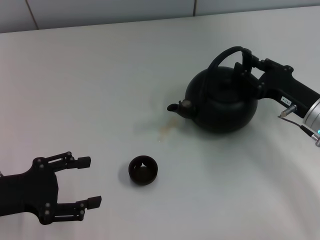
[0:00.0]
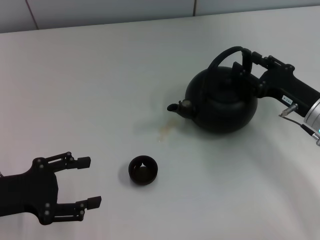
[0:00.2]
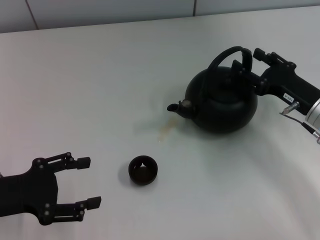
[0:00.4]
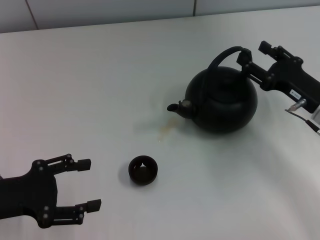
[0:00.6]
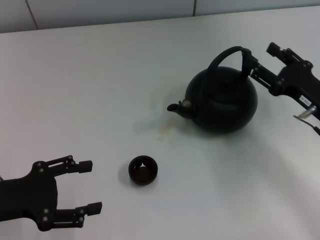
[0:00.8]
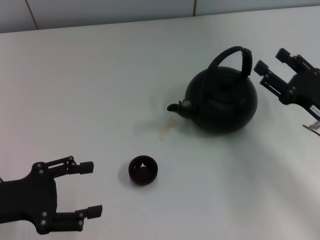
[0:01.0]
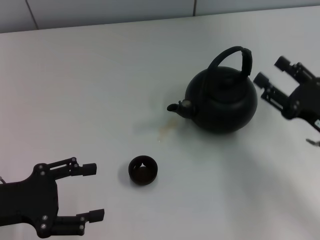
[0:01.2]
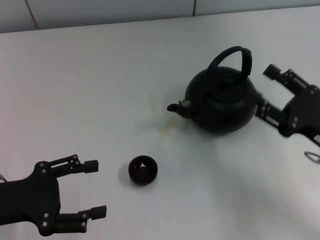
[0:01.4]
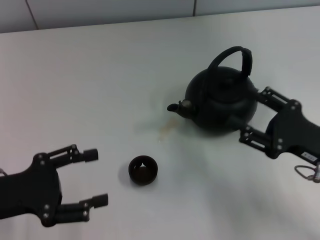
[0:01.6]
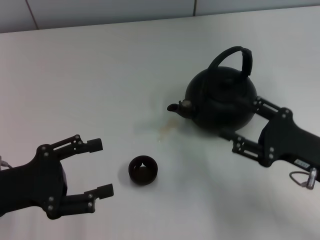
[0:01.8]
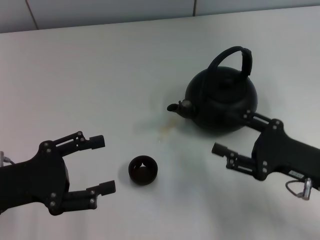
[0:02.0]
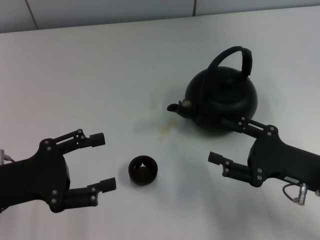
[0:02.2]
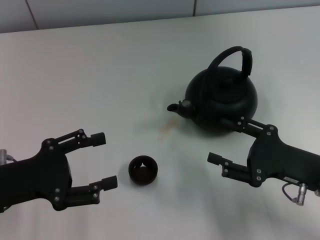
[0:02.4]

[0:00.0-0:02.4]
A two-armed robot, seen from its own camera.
Task of the whole recording: Grasp the handle of the teapot with one hand and pour tea into the teacup.
0:00.0 to 0:01.2: The right gripper moves backward, about 5 cm, and opens up.

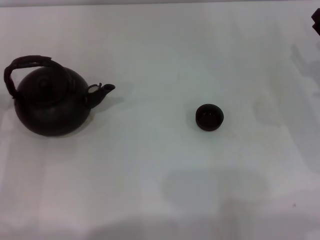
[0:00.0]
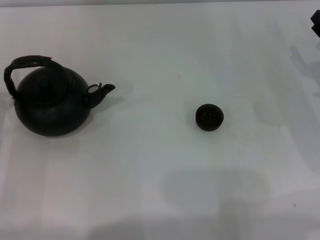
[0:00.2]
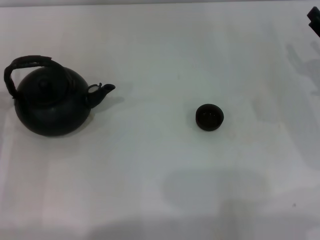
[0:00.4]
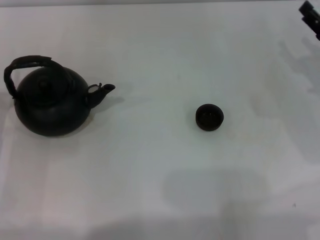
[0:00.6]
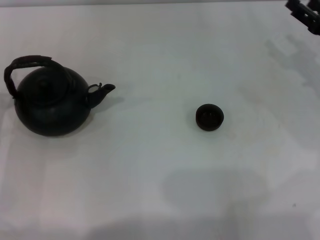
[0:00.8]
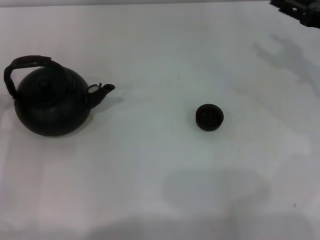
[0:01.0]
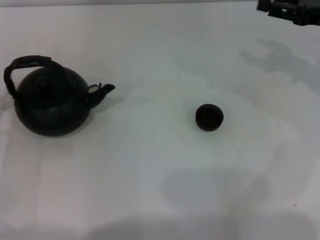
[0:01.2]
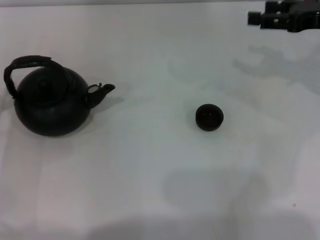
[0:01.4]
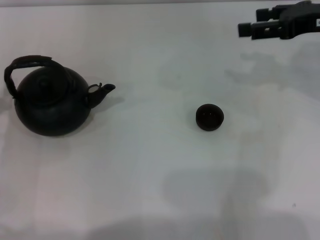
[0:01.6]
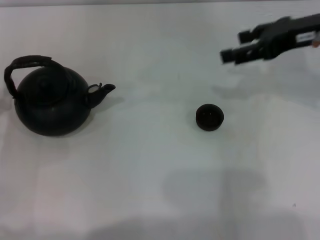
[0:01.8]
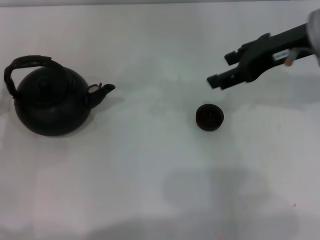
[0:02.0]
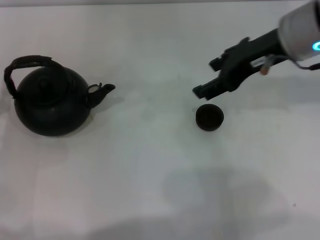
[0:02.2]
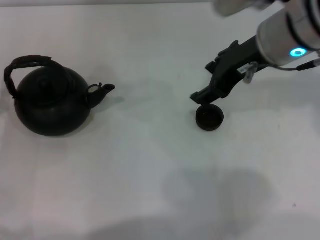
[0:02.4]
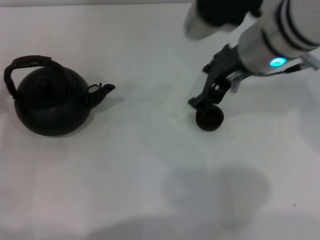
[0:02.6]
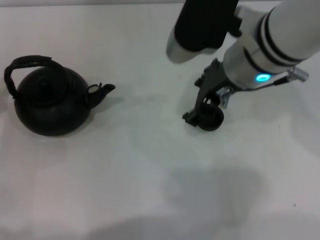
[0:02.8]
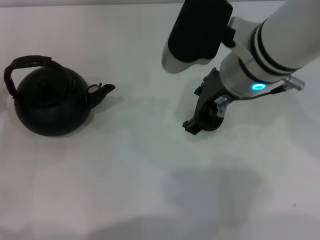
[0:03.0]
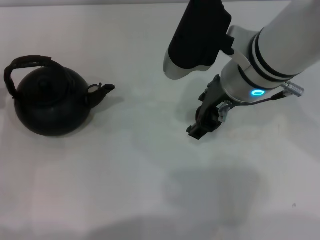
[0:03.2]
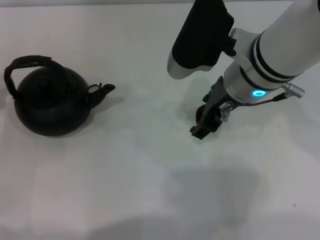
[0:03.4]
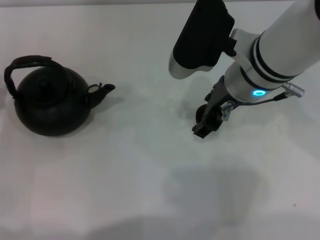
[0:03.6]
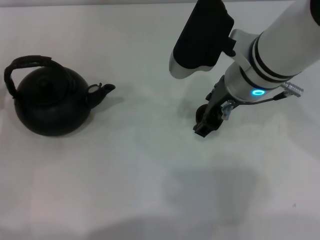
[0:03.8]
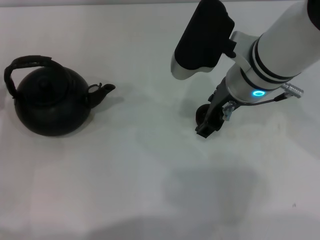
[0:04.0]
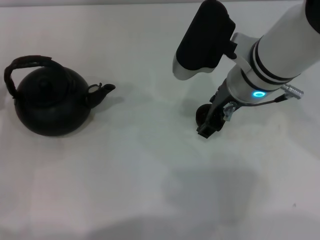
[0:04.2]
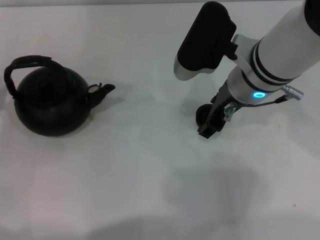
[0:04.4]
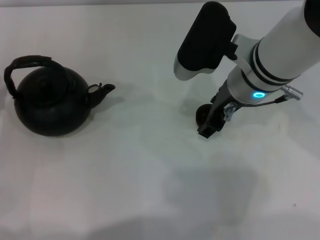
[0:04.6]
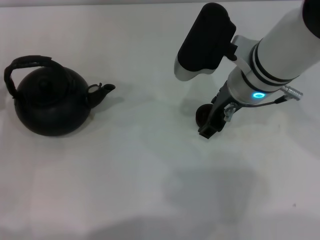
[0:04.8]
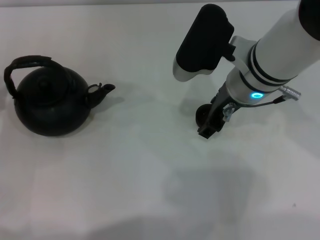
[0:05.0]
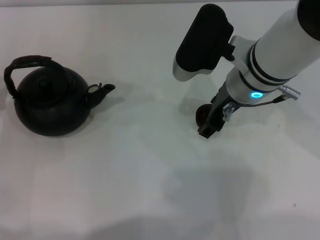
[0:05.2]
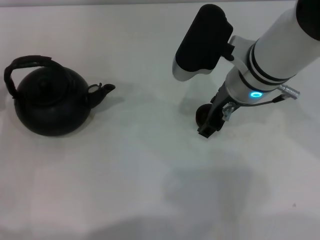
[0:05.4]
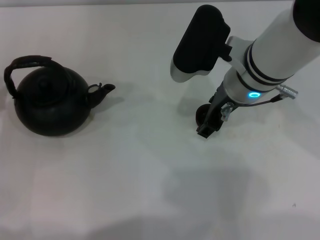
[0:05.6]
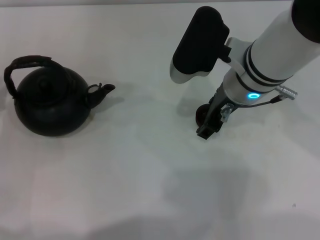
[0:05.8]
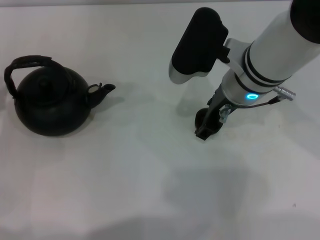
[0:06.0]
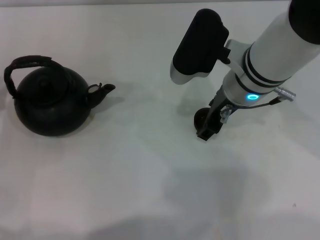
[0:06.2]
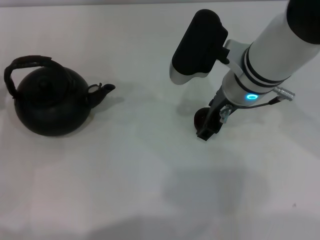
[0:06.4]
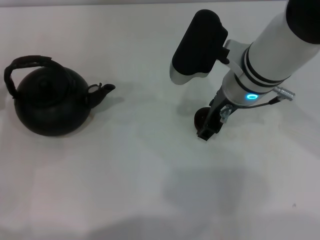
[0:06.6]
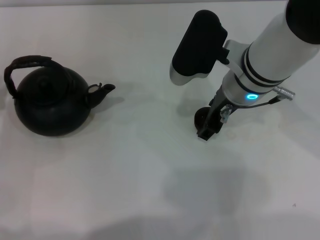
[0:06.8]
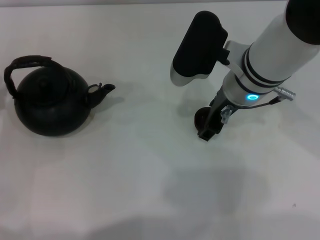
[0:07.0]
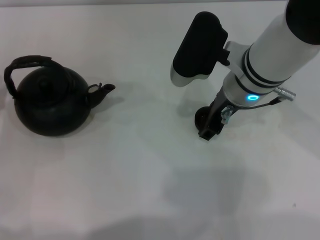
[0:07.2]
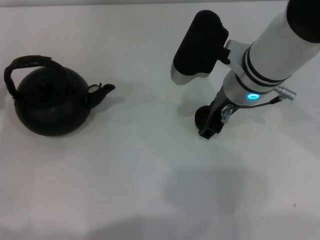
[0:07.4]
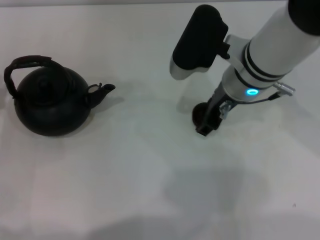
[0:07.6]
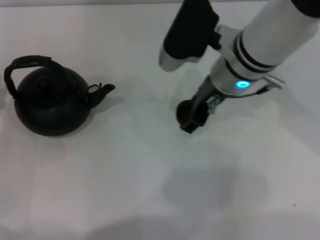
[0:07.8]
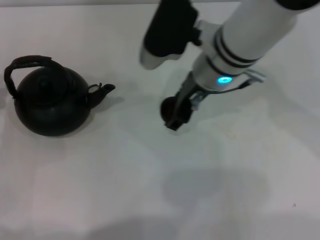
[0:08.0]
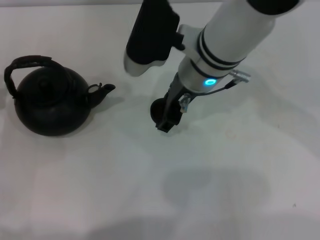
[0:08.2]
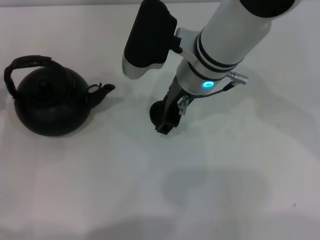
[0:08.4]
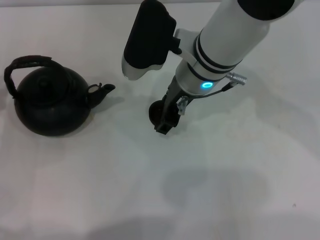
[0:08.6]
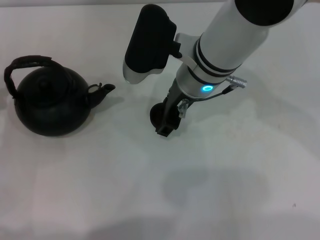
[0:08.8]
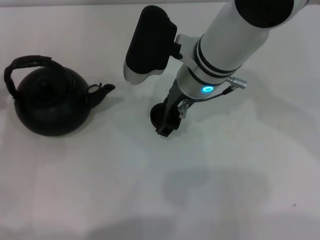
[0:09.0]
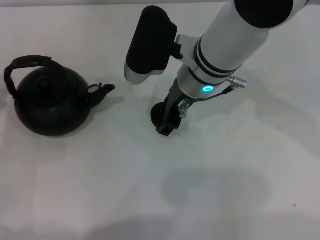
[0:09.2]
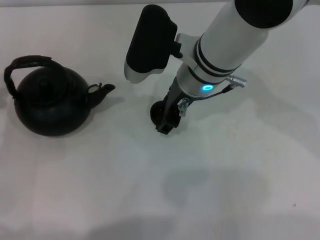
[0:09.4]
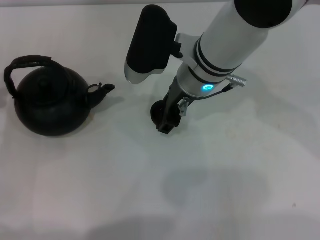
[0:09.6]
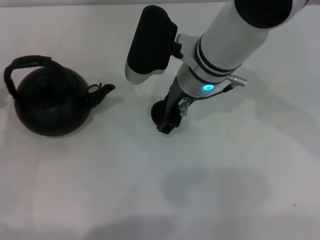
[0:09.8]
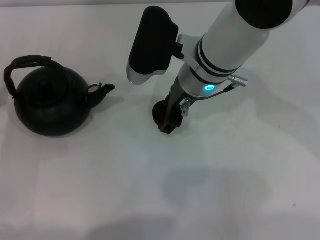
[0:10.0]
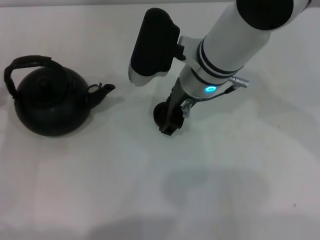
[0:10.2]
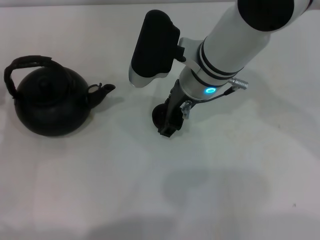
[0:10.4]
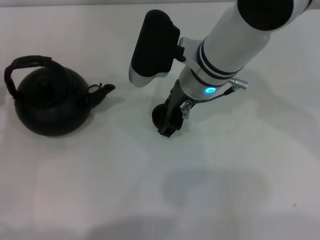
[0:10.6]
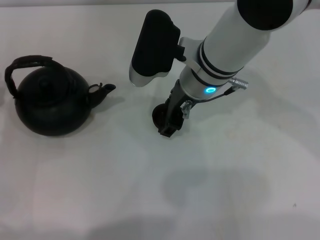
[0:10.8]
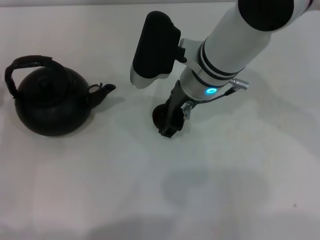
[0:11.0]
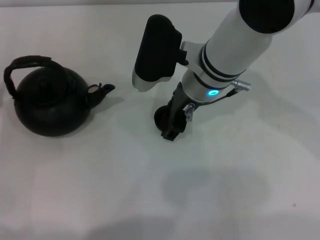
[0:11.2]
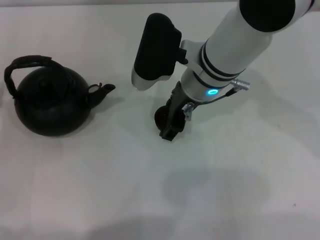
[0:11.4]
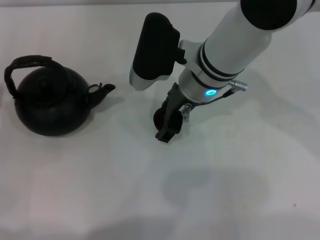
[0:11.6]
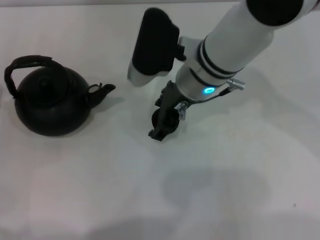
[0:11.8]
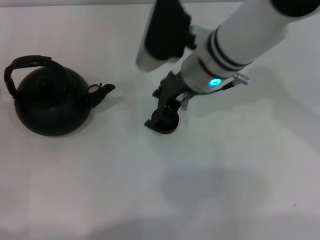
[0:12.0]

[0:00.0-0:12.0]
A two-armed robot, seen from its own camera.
Task of the whole recording: Grasp the handle of the teapot with one hand and pour tea into the teacup.
Step, 0:00.0 to 0:07.6: Pick up the teacup with the right gripper.
0:00.0 to 0:01.6: The right gripper moves upward, roughly 15 cm.
0:01.6 to 0:03.0: The right gripper goes some 20 cm to the left.
0:03.0 to 0:04.4: The grippers make only small movements.
0:04.4 to 0:06.0: Both grippers stay put.
0:06.0 to 0:07.6: Both grippers stay about where they are.
0:07.6 to 0:09.0: The right gripper travels to the left by roughly 5 cm.
0:09.0 to 0:10.4: Both grippers stay put.
0:10.4 to 0:12.0: The grippers stay close to where they were, moving slightly.

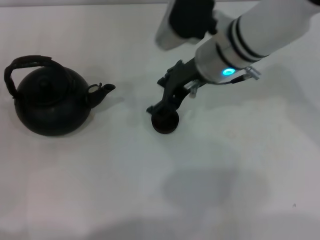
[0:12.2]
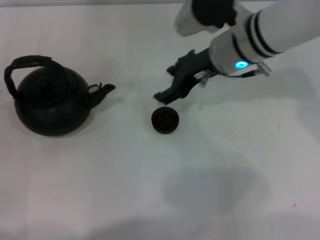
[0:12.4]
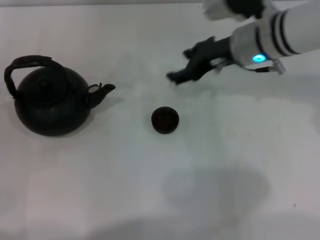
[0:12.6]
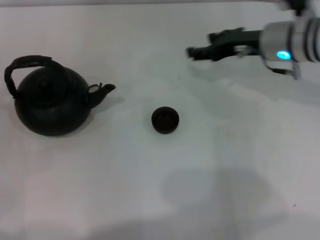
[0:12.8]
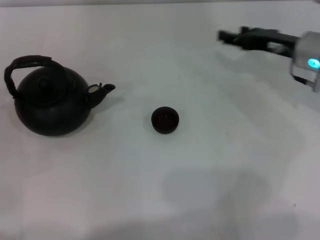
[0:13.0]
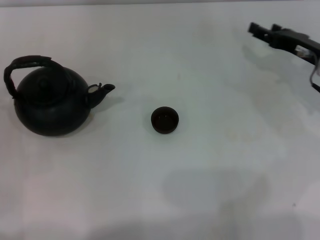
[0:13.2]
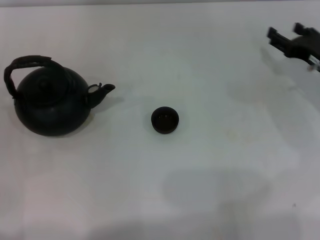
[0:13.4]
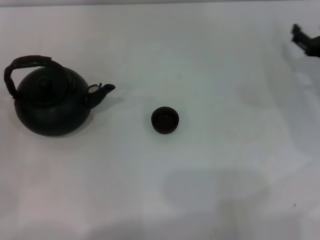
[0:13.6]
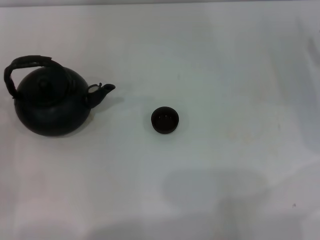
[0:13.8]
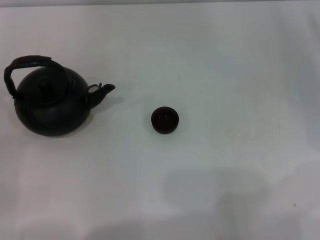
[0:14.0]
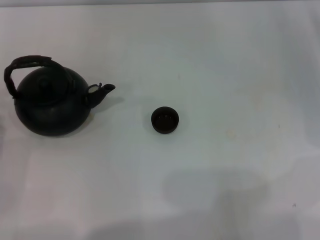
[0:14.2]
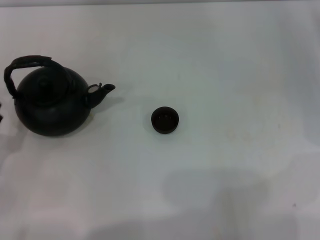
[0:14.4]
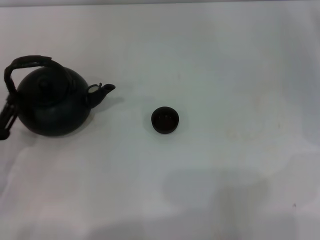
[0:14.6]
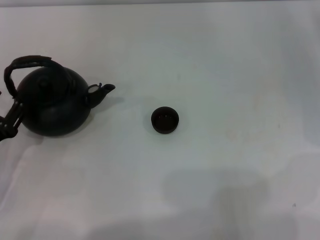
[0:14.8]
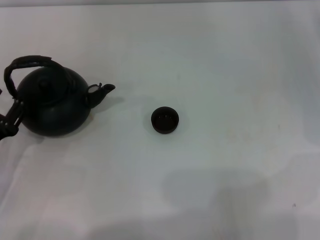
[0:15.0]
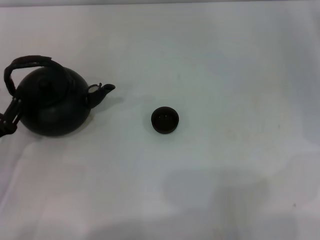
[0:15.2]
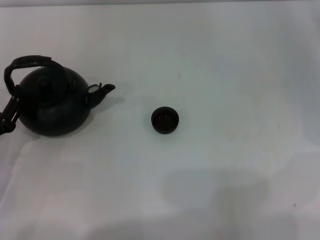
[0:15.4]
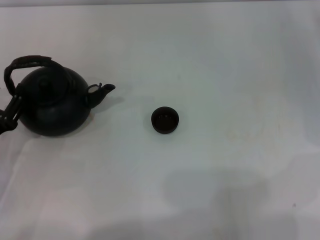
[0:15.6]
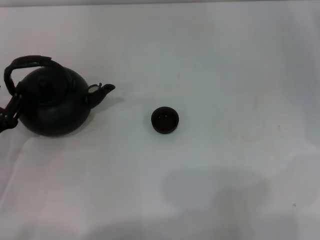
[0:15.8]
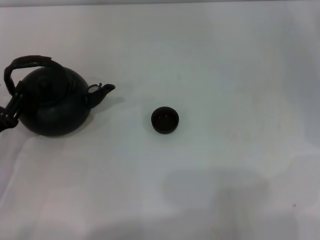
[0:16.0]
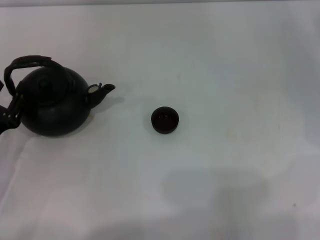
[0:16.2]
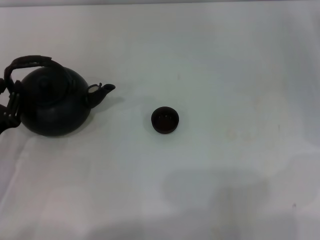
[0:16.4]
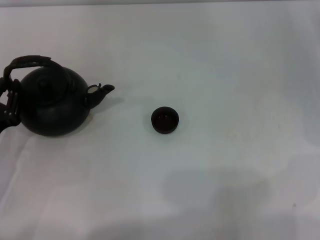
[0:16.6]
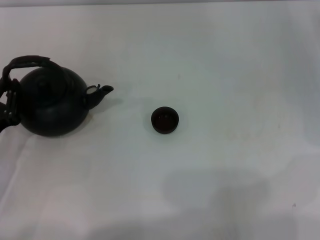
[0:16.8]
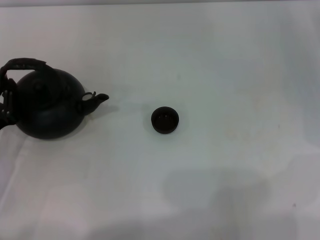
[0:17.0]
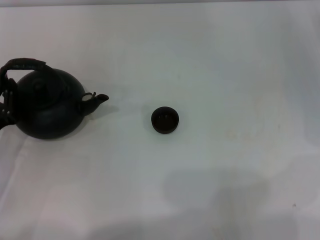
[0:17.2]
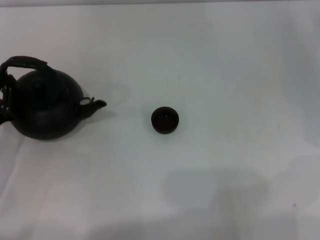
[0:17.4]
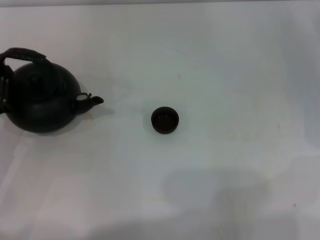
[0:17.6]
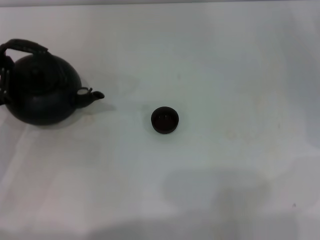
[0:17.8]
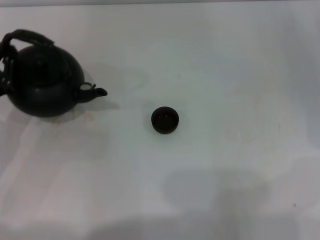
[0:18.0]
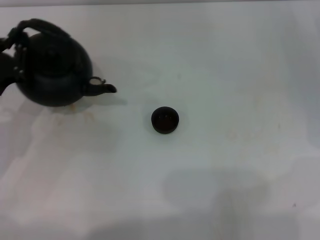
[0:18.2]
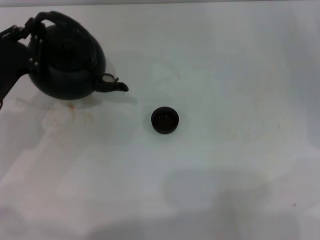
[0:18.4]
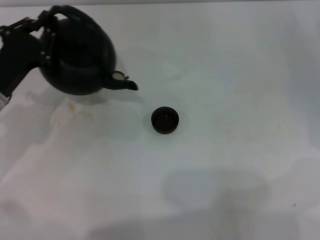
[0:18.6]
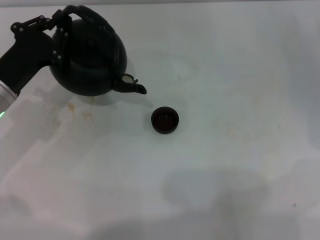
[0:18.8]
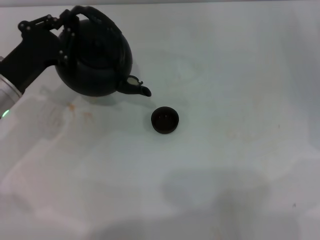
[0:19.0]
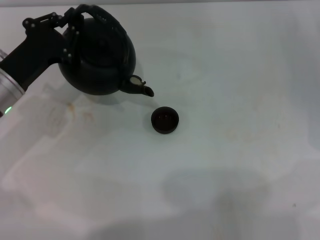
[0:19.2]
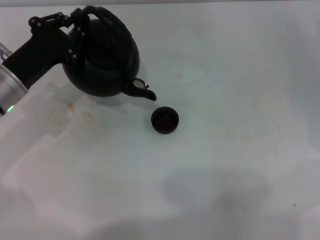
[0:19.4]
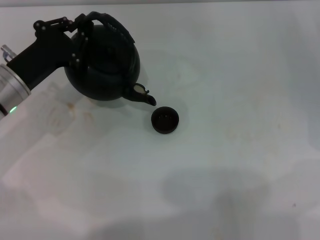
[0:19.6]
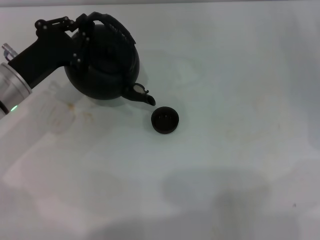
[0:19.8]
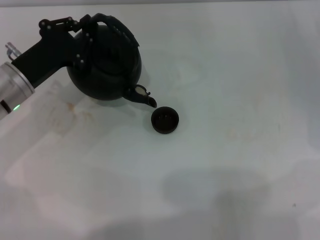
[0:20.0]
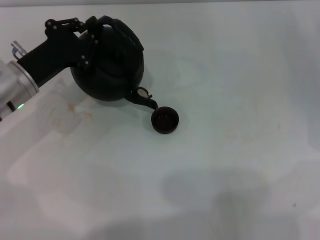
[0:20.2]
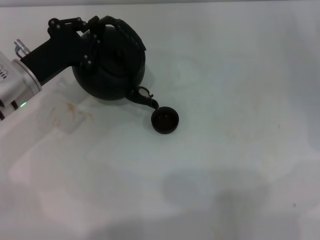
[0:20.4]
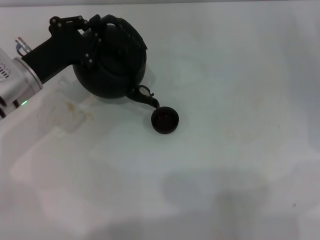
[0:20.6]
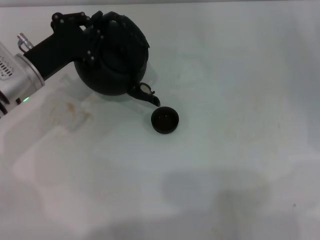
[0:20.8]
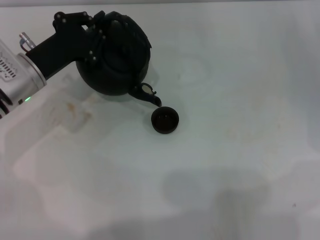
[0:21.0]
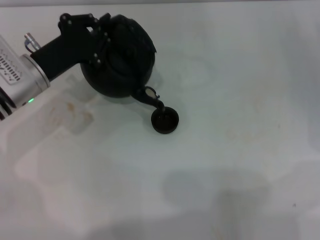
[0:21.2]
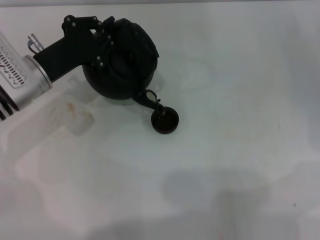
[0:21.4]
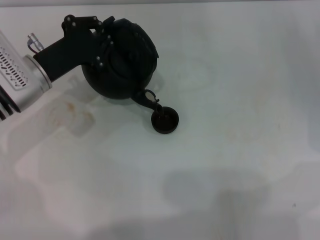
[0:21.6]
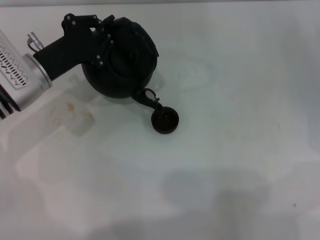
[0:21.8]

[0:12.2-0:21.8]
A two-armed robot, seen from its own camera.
Task of the whole recording: Grasp the handle of the teapot with one hand and pour tea into the teacup.
Step, 0:12.6 to 0:18.2: Pick up the teapot with the left gripper.
0:12.2 to 0:13.8: The right gripper shifts about 25 cm to the right. Meanwhile the left gripper moves backward, about 5 cm.
0:15.4 to 0:17.0: The left gripper closes.
0:17.0 to 0:18.6: The left gripper is displaced forward and upward by approximately 10 cm.
0:18.6 to 0:20.2: There are only small adjustments of the grippers.
0:20.2 to 0:21.8: The grippers move only a little.
